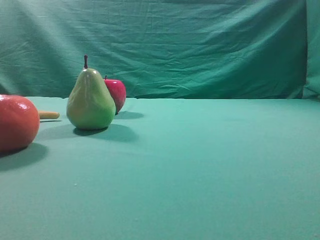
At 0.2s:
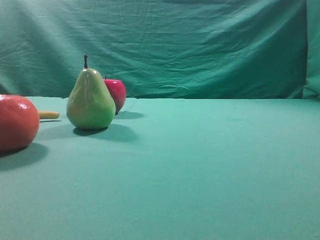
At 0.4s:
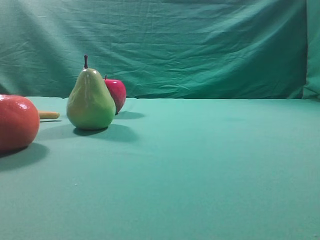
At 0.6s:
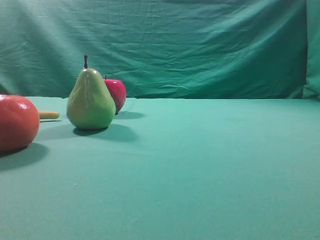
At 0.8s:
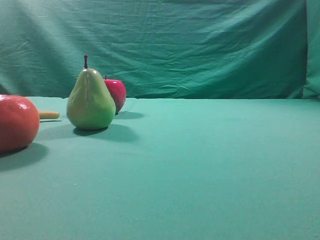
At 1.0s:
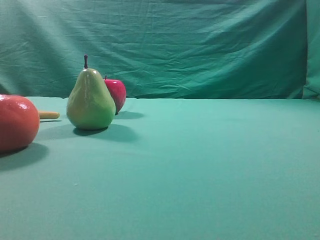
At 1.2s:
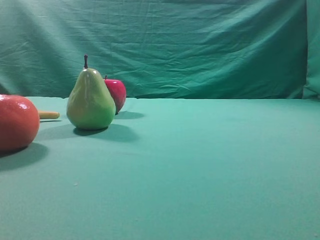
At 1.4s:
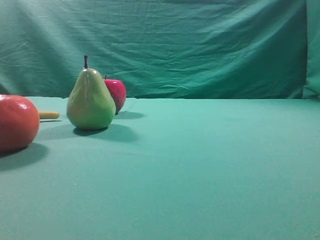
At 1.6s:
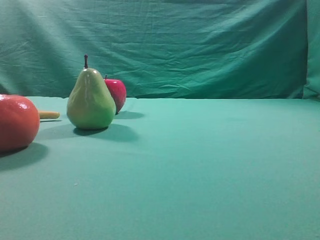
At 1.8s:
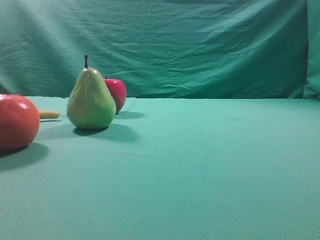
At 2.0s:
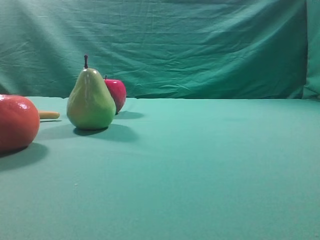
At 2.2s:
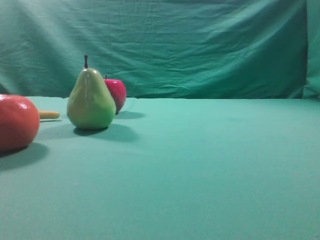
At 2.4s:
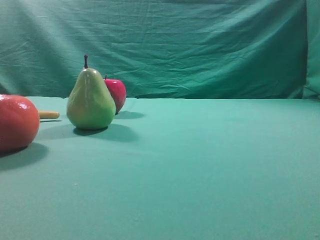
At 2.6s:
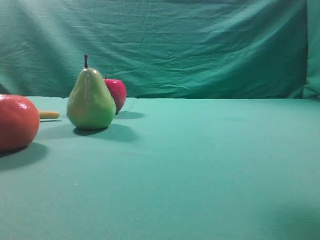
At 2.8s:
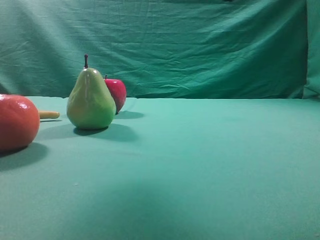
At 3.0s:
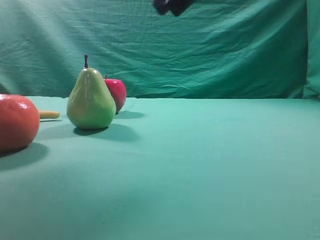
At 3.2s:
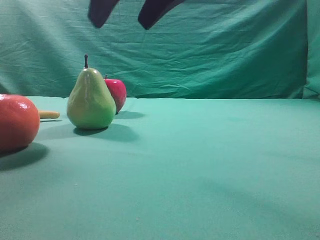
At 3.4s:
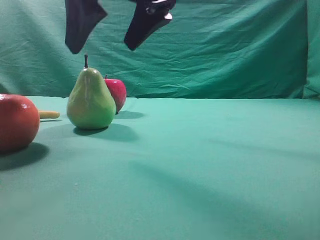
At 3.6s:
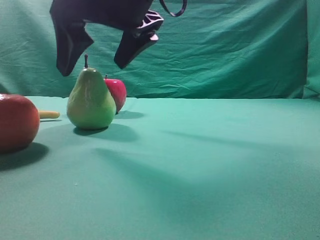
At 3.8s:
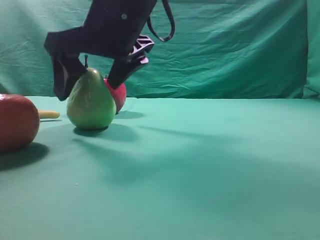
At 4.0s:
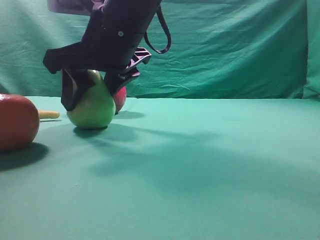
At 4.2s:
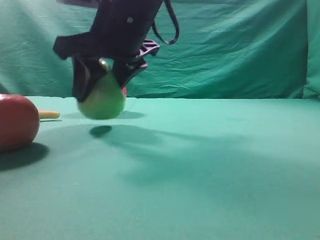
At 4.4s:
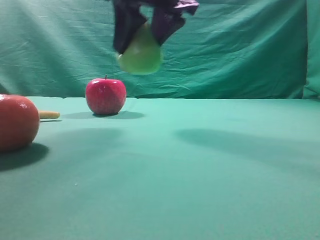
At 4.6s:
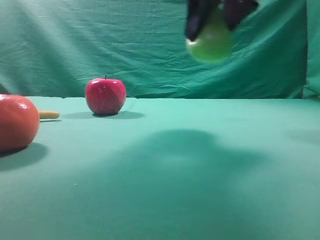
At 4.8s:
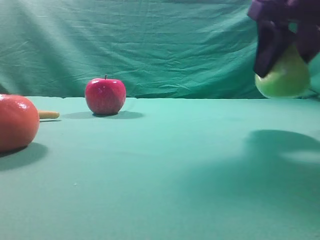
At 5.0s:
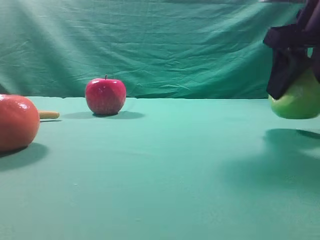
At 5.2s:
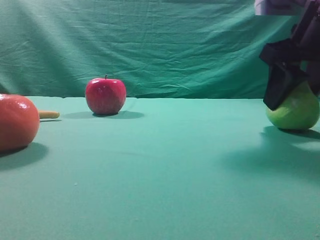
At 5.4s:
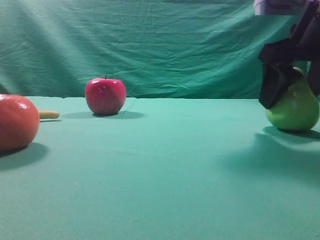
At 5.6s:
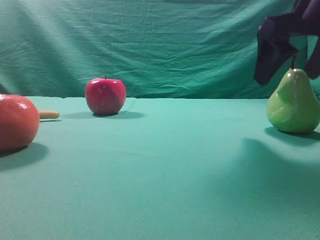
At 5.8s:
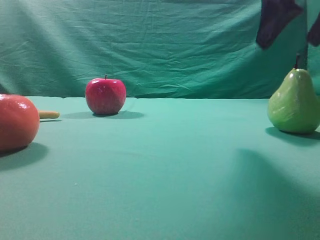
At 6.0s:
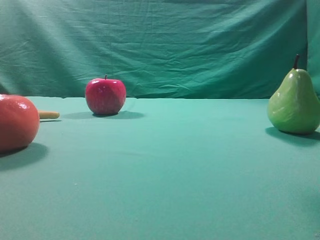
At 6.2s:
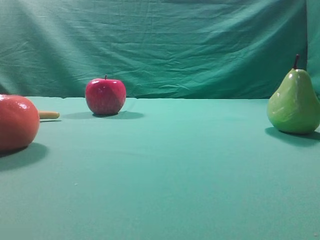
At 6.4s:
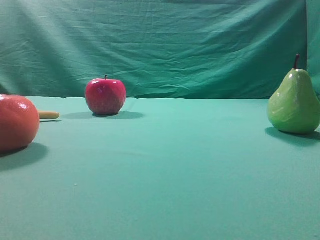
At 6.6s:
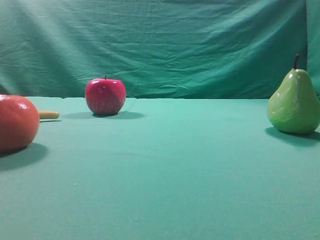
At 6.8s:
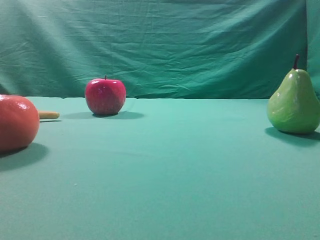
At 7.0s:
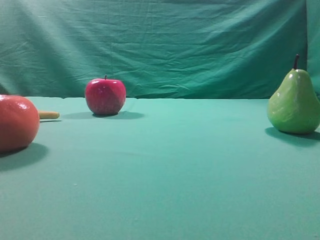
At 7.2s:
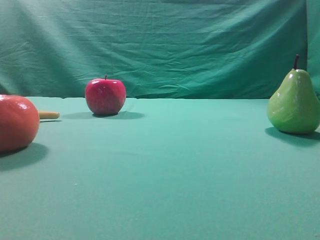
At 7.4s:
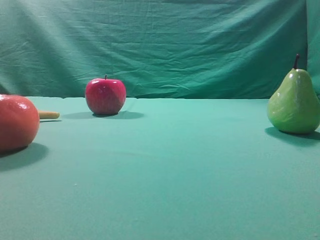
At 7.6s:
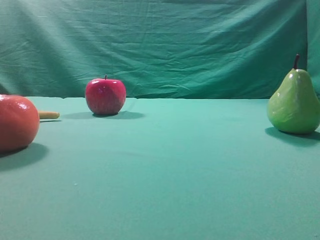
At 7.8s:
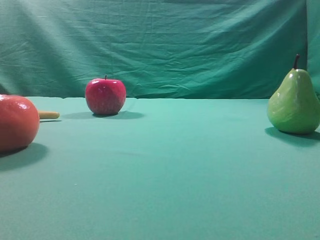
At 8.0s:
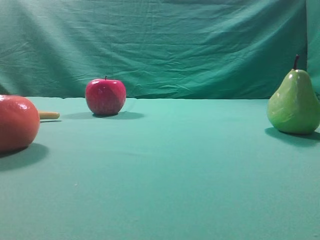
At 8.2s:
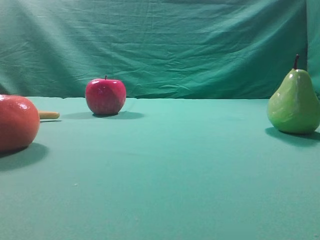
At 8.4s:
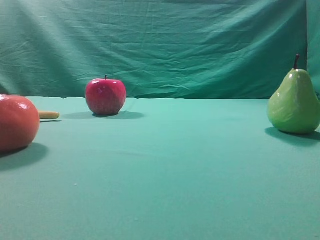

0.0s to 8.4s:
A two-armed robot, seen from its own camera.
Task of the whole recording: Grasp the pear and place it on one side of the table.
Step, 0.0s to 4.2s: Grasp the high-fiber fruit.
Step, 4.4s to 5.6s: Place it on the right side of the table.
